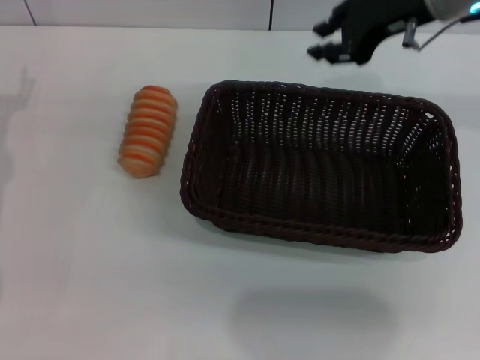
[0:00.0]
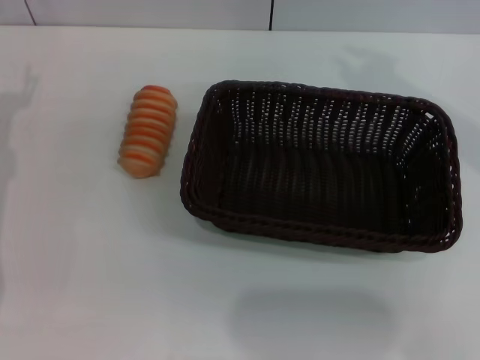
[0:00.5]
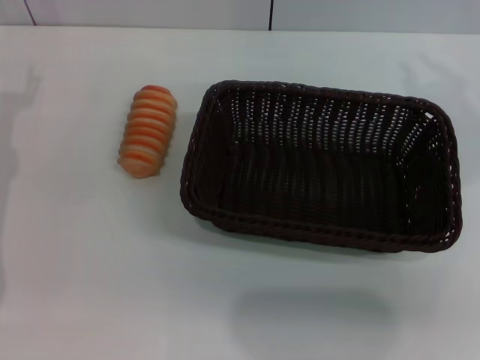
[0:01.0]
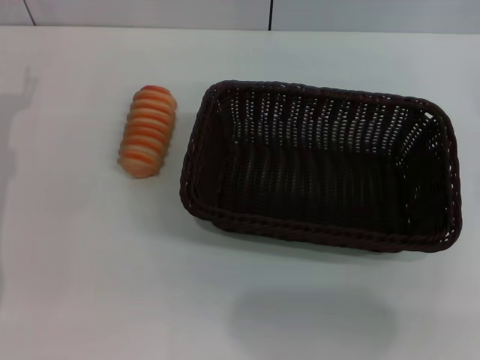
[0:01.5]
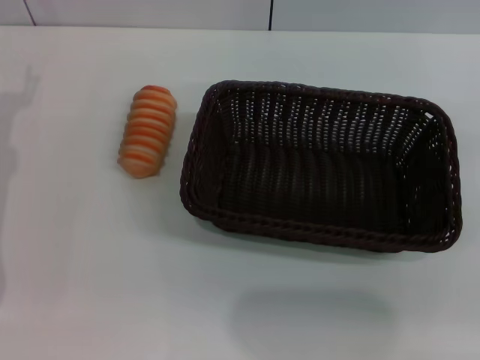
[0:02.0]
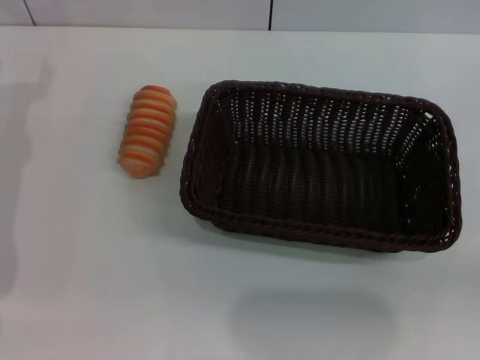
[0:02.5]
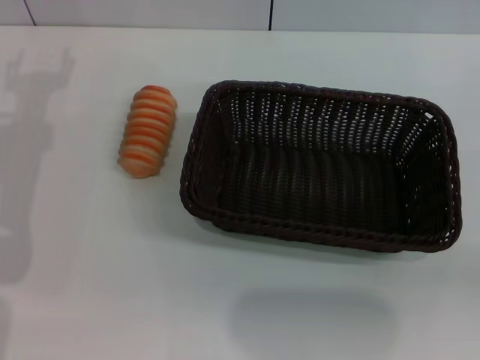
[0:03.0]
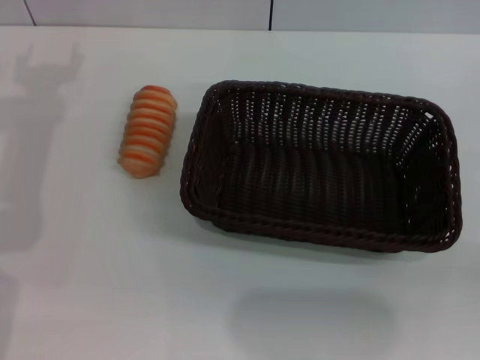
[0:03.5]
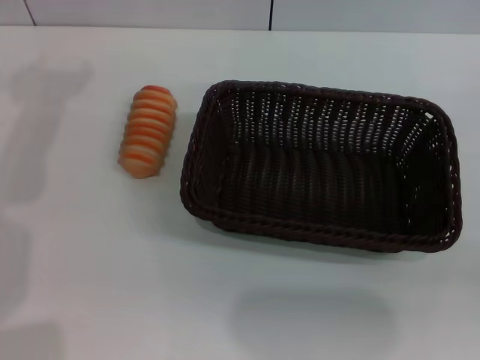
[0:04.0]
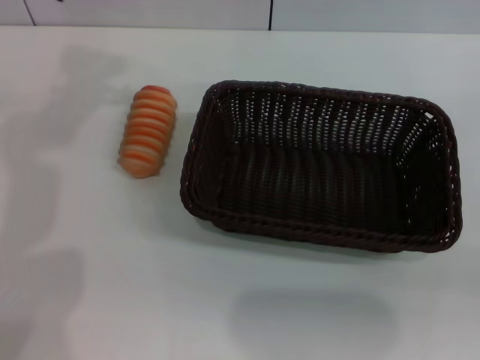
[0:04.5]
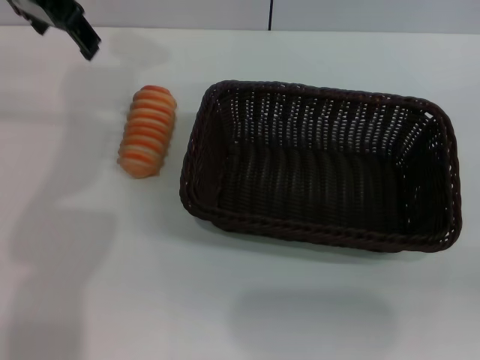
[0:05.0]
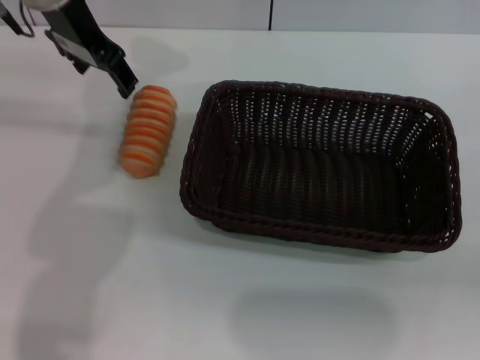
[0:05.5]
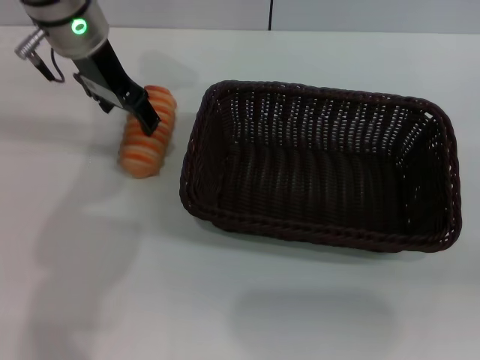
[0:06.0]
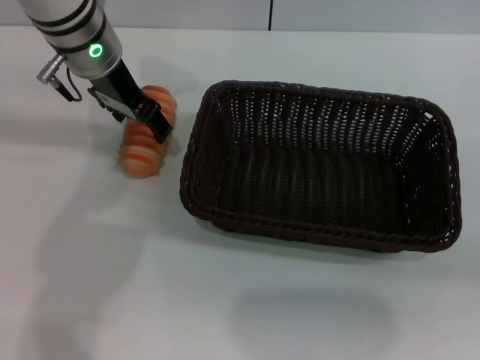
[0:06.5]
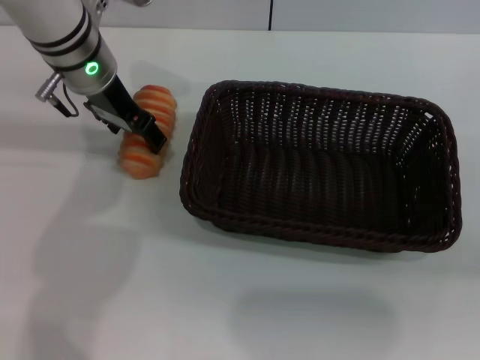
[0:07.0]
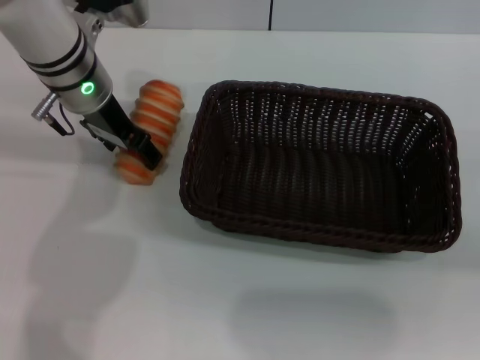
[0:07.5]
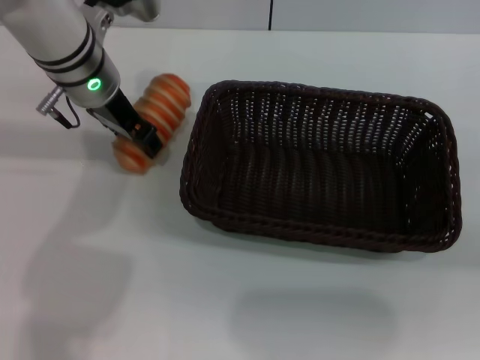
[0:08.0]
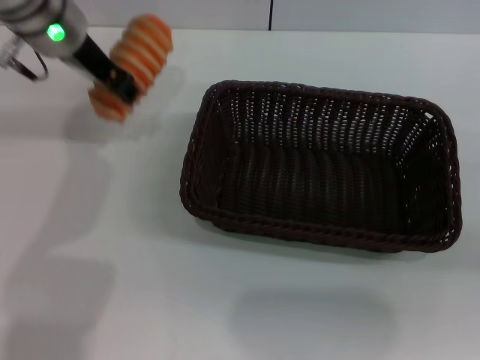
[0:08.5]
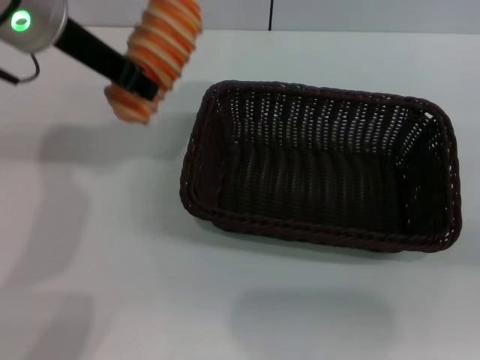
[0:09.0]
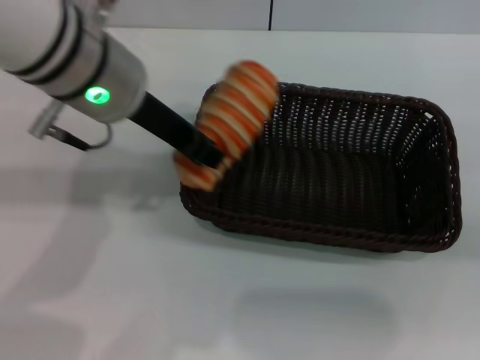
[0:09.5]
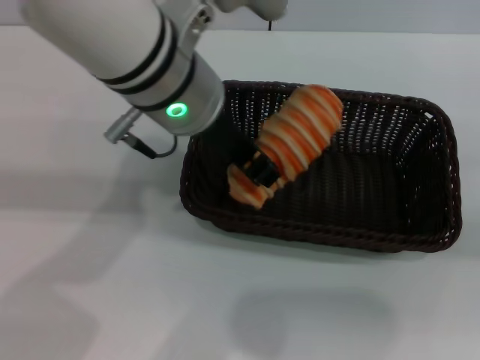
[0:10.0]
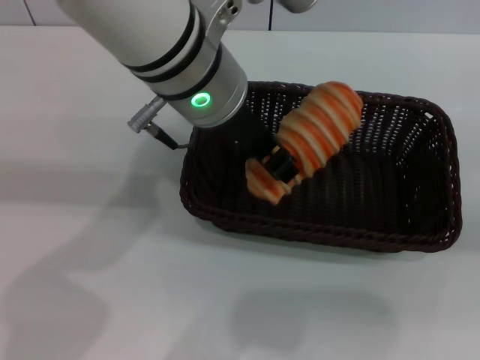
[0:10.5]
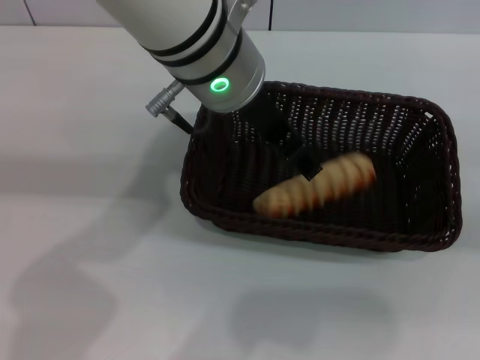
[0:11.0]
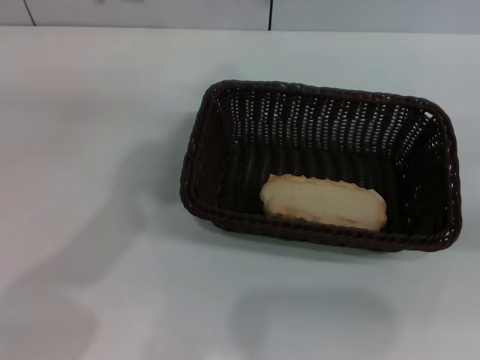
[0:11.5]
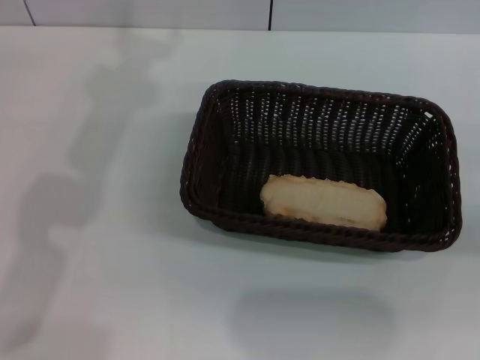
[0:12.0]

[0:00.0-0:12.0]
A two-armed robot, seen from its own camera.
Step, 0:00.0 to 0:08.5: Pick up the long bread with the left gripper.
Step, 0:09.0 to 0:11.0: Place the long bread into the dark basket with the left gripper.
0:00.0 to 0:02.0: The right gripper goes roughly 30 cm backward and to the right.
0:04.0 to 0:06.0: The left gripper travels to the right, downward and forward by roughly 15 cm.
0:06.0 to 0:08.0: The left gripper ends up about 5 cm from where it was.
0:08.0 to 0:10.0: The left gripper moves backward, to the right and upward, approximately 15 cm, and closes its fingers.
0:10.0 to 0:12.0: The left gripper travels to the left and upward by approximately 15 cm, and opens its fingers.

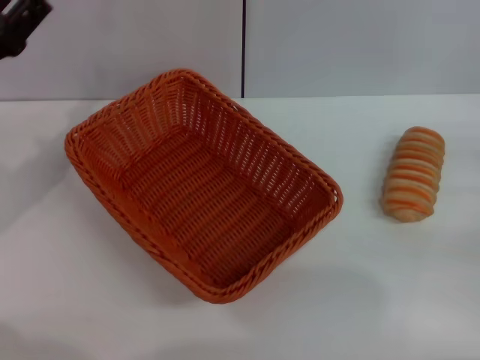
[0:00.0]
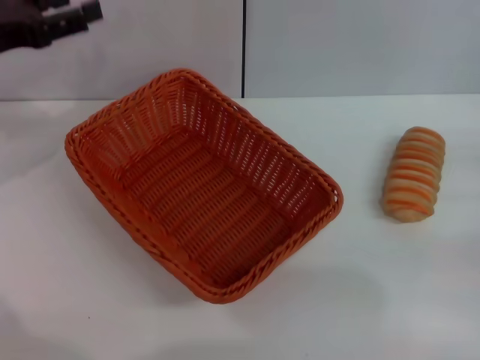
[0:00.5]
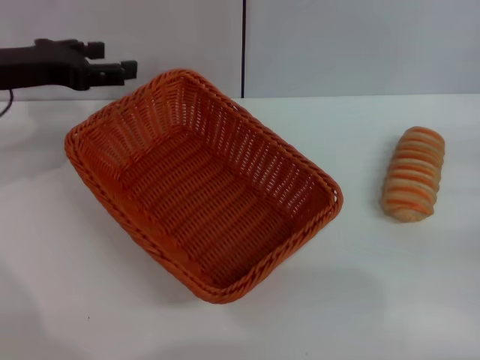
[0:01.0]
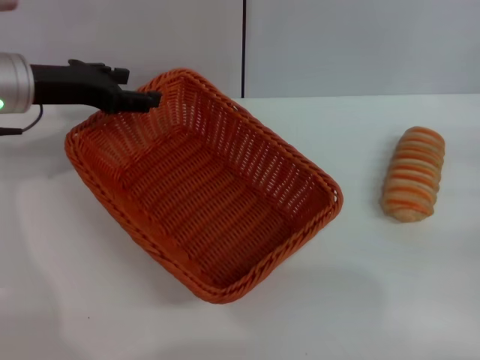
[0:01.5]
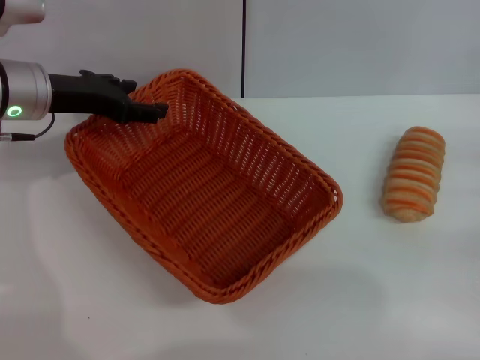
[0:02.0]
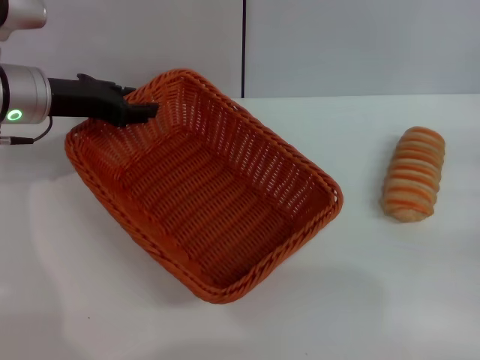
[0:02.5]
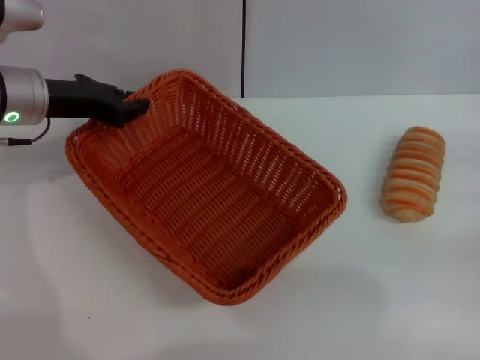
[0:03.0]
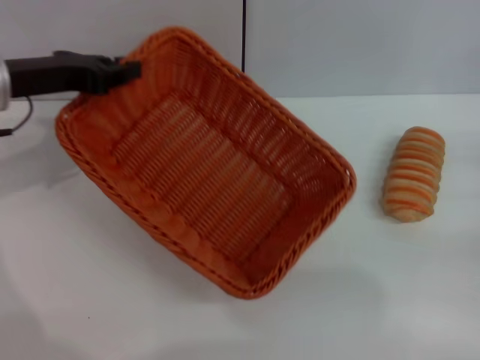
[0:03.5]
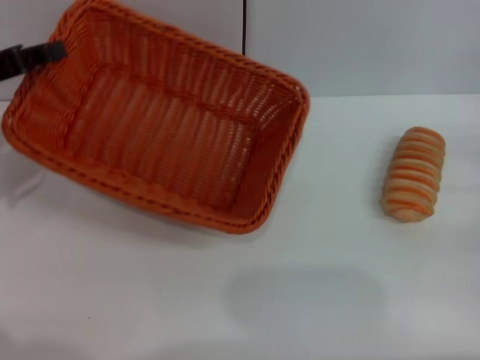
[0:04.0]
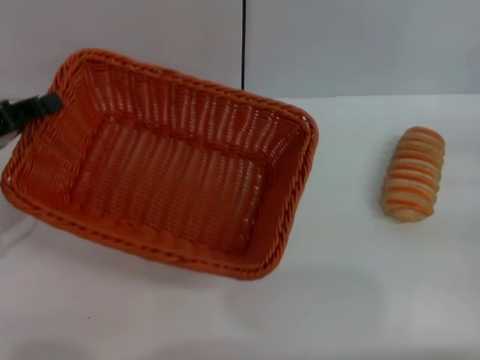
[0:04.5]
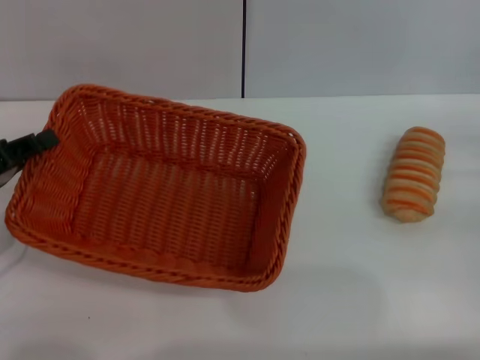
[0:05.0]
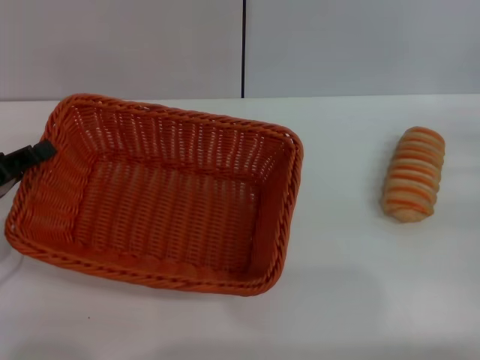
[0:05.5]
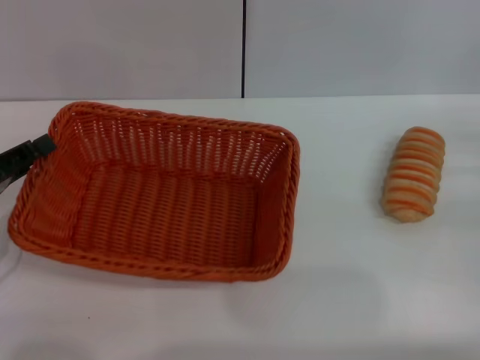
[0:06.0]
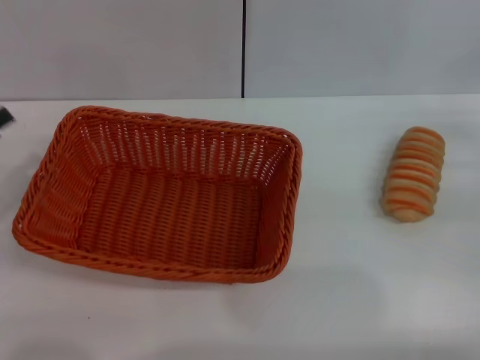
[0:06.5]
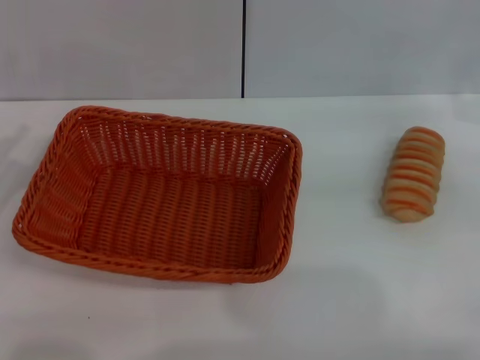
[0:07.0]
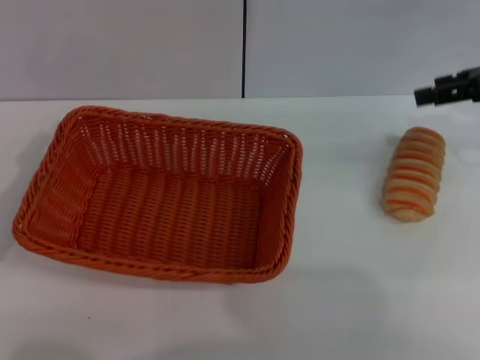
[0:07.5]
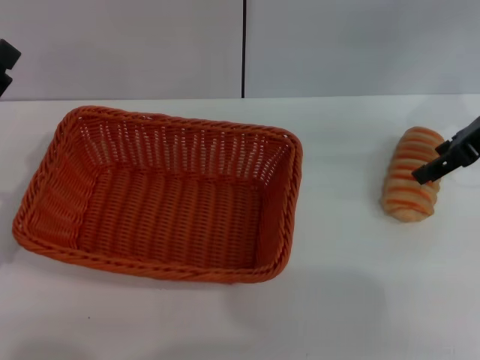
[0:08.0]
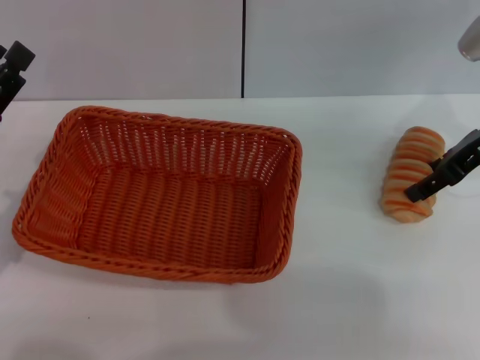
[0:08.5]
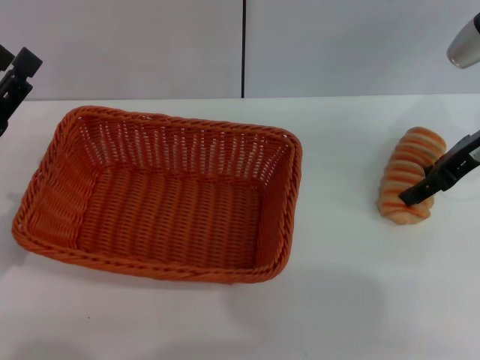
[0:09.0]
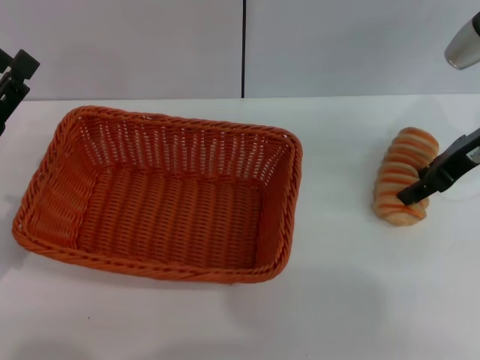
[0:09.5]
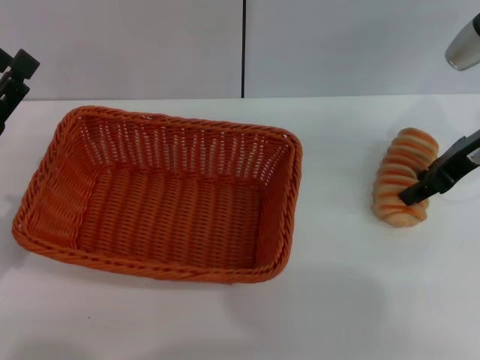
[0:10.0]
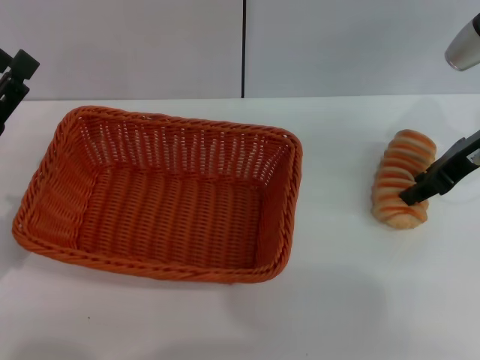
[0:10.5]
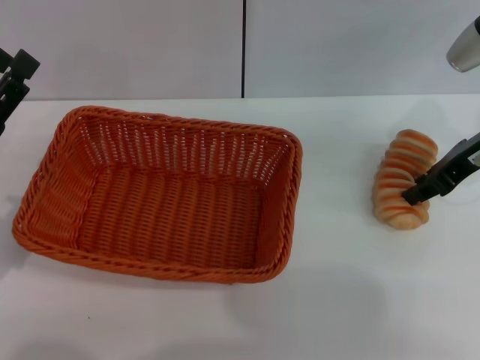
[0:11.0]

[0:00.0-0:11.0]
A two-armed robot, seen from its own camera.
Step, 0:00.0 to 0:03.5: Pick up the light basket with the left gripper.
Step, 0:04.0 to 0:06.0: Place the light basket in the center of view with the left gripper.
0:00.0 to 0:02.0: The left gripper heads forward and to the right, covering about 10 cm, and opens.
0:02.0 to 0:03.5: The left gripper closes.
0:03.5 to 0:05.5: The left gripper is displaced backward, downward and to the left by roughly 15 cm.
0:05.5 to 0:07.5: The right gripper heads upward and forward, covering about 15 cm, and opens up; the left gripper opens.
0:07.5 to 0:09.0: The right gripper moves to the left and downward, roughly 10 cm.
0:09.0 to 0:11.0: The right gripper closes.

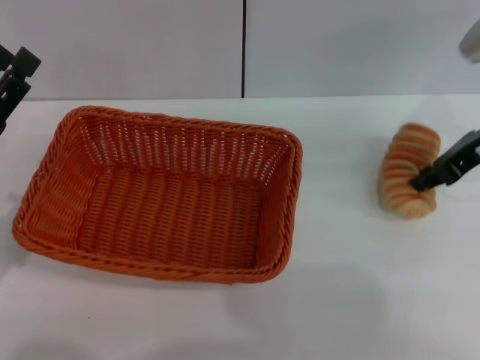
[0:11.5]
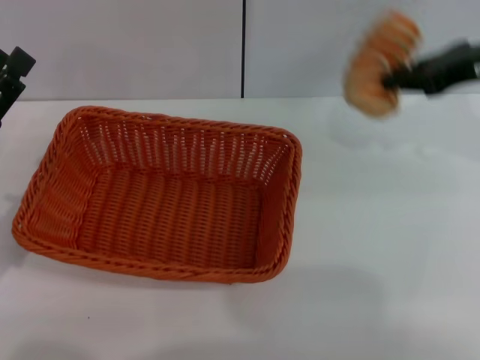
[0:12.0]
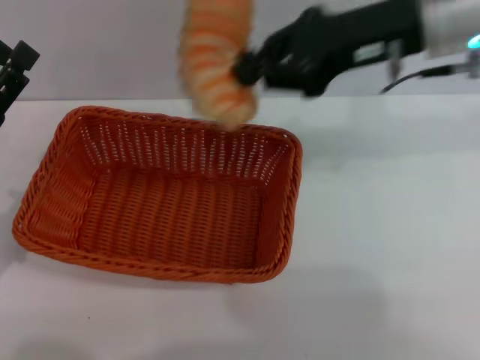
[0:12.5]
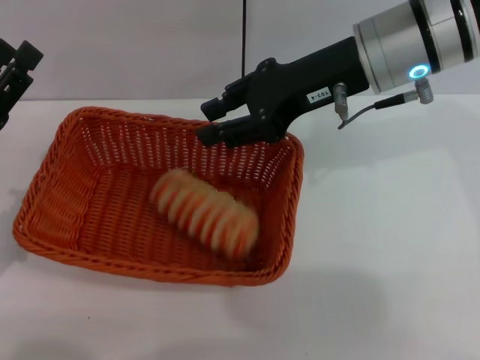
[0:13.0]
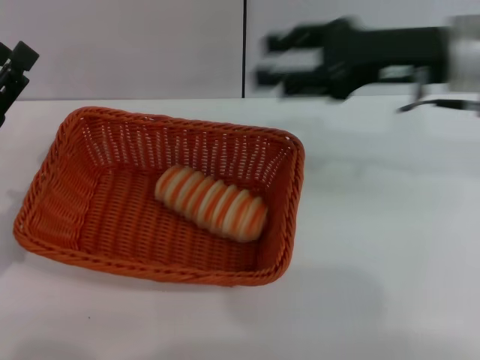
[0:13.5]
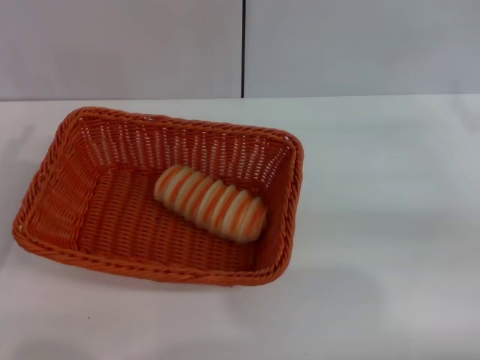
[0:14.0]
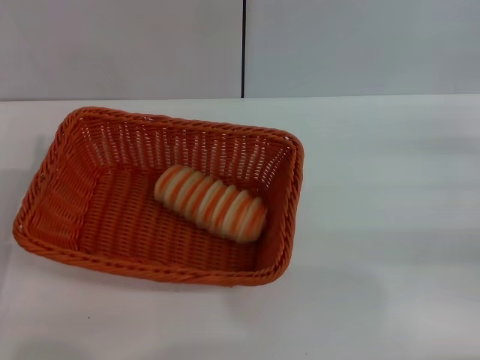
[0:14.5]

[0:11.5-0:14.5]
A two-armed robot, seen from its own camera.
Step, 0:12.0 to 0:12.5: Place the long bread into the light basket with the right gripper.
0:11.5 to 0:13.0: The right gripper moves to the left and upward, approximately 15 cm.
0:13.0 to 0:14.5: The right gripper travels to the right and downward by some 30 cm, and opens up.
